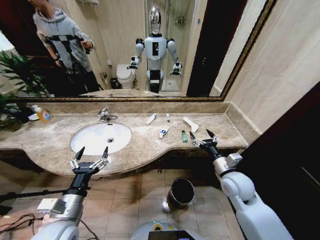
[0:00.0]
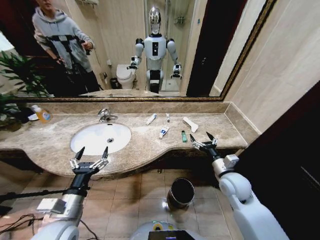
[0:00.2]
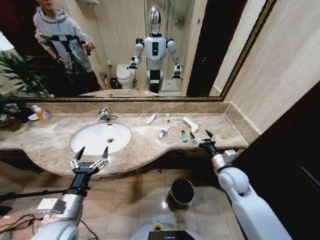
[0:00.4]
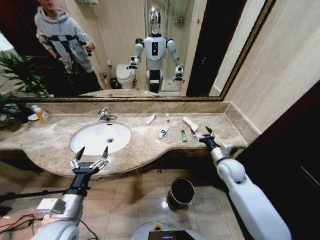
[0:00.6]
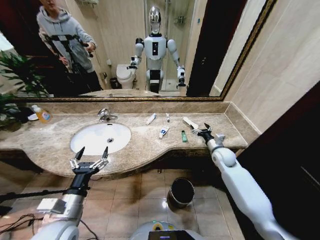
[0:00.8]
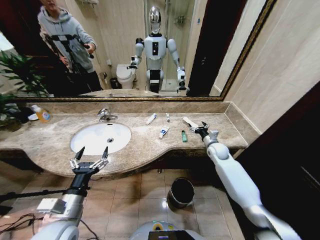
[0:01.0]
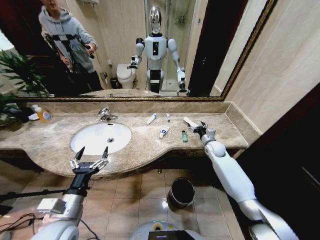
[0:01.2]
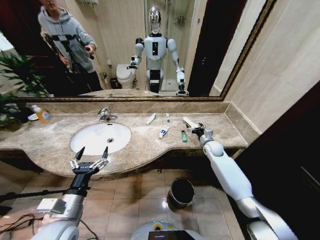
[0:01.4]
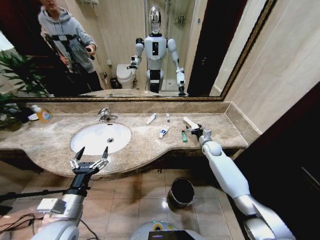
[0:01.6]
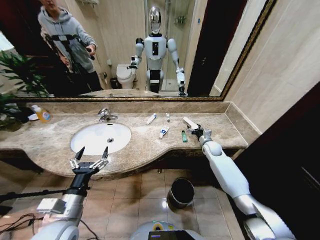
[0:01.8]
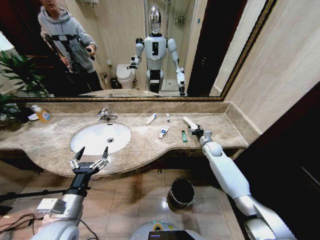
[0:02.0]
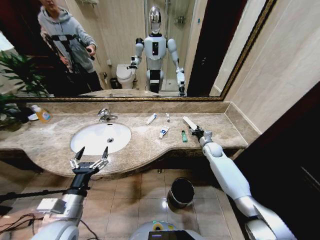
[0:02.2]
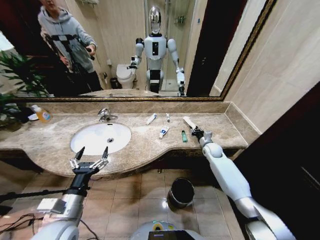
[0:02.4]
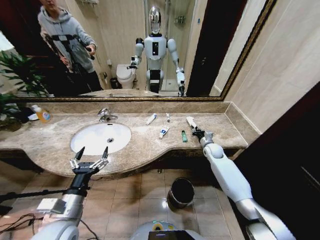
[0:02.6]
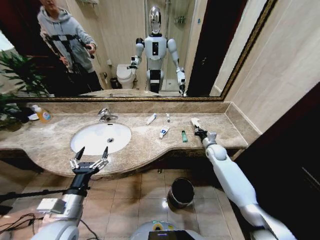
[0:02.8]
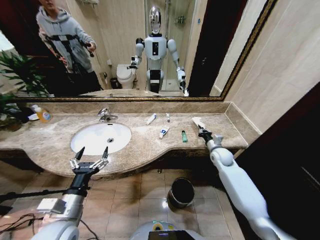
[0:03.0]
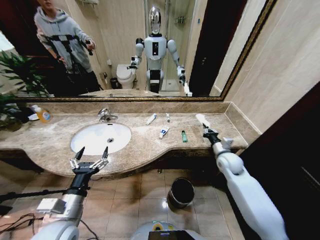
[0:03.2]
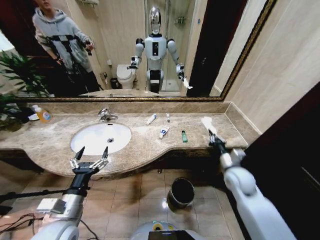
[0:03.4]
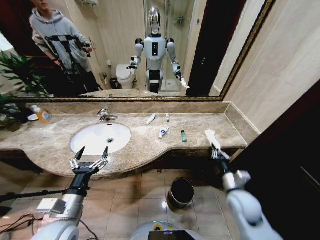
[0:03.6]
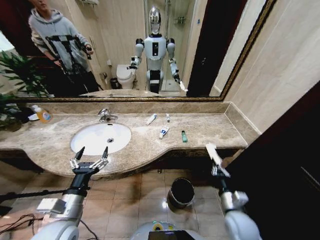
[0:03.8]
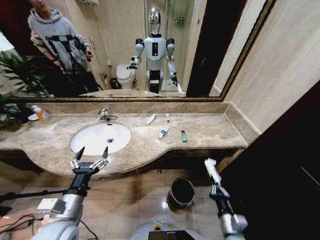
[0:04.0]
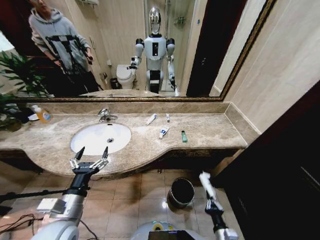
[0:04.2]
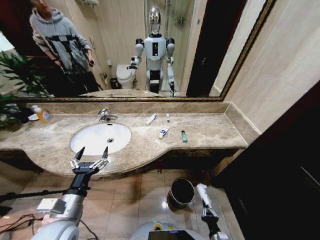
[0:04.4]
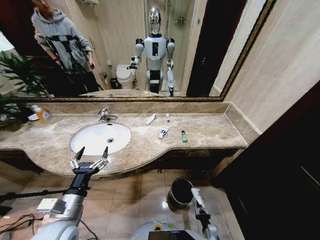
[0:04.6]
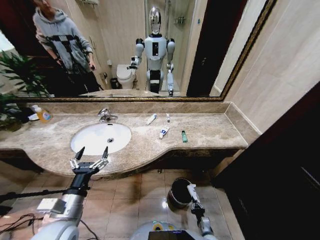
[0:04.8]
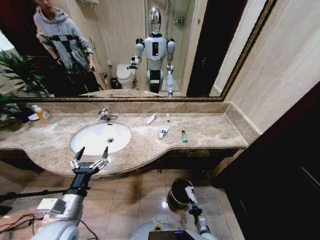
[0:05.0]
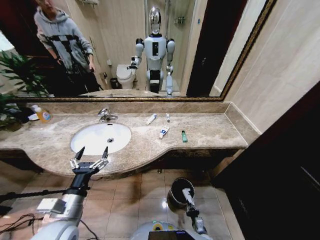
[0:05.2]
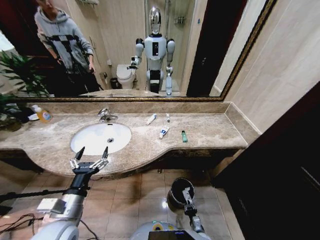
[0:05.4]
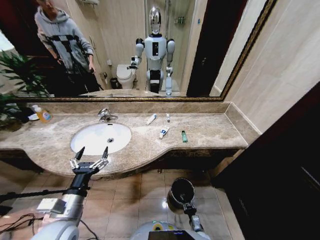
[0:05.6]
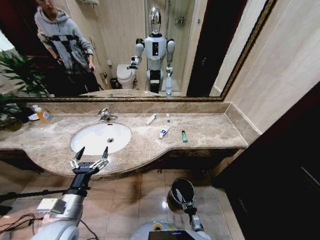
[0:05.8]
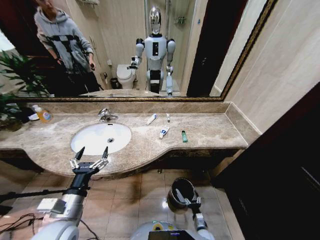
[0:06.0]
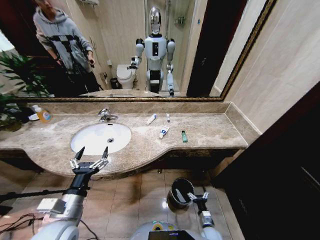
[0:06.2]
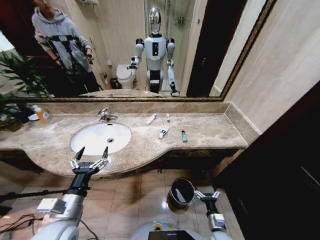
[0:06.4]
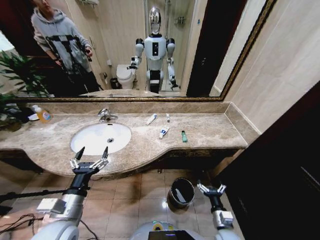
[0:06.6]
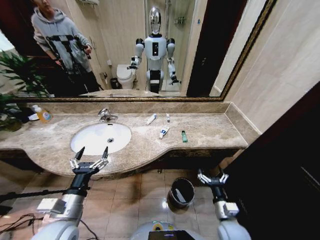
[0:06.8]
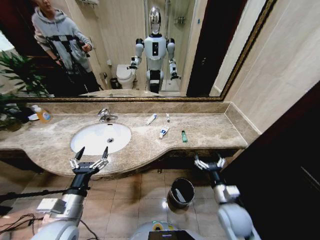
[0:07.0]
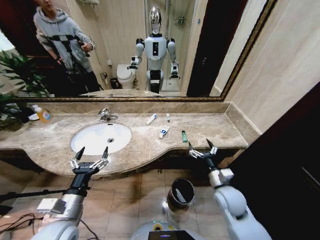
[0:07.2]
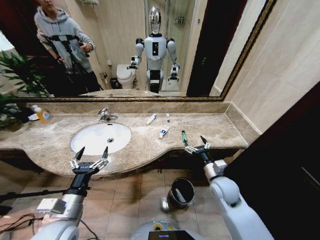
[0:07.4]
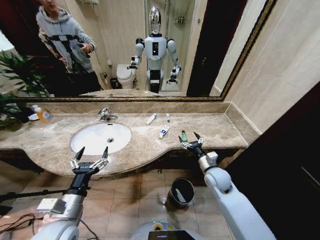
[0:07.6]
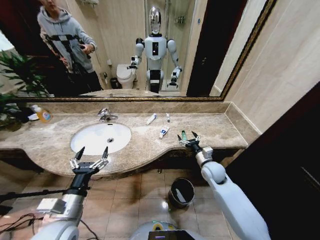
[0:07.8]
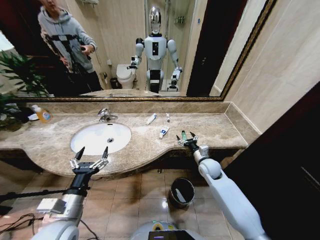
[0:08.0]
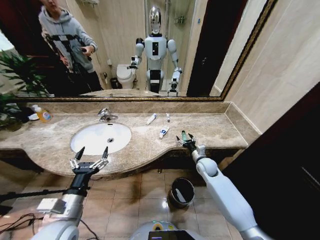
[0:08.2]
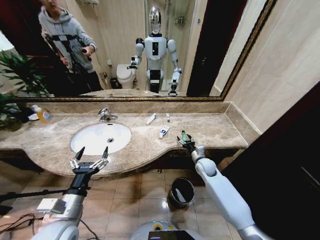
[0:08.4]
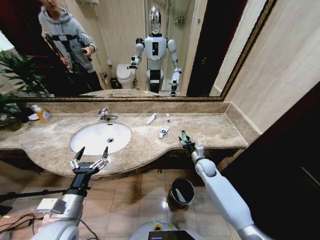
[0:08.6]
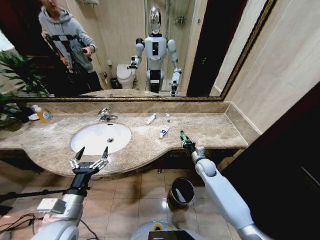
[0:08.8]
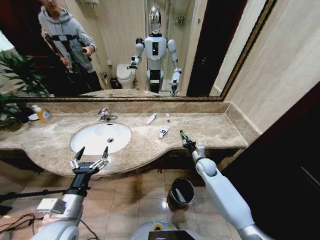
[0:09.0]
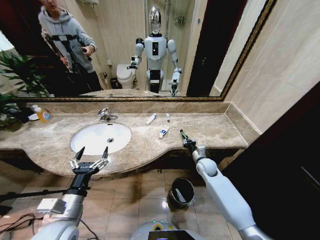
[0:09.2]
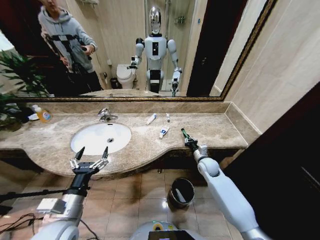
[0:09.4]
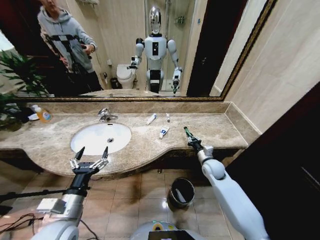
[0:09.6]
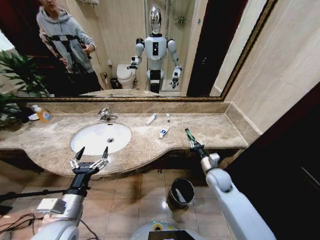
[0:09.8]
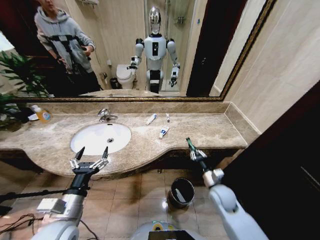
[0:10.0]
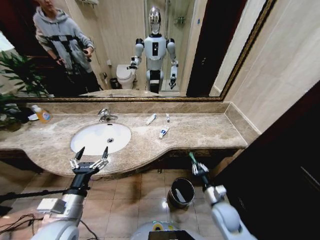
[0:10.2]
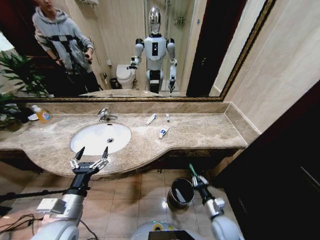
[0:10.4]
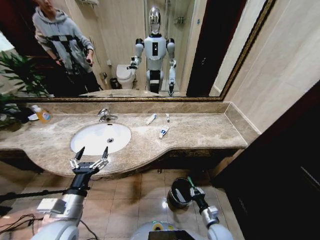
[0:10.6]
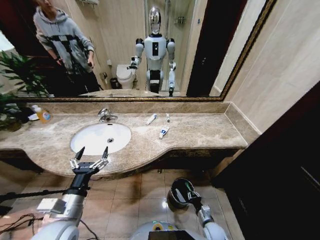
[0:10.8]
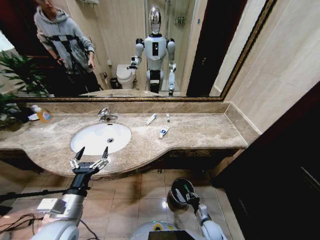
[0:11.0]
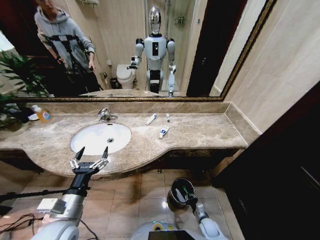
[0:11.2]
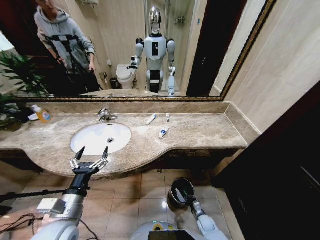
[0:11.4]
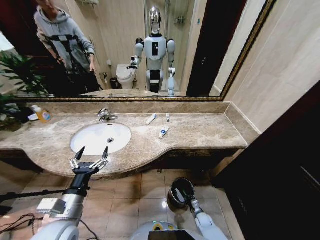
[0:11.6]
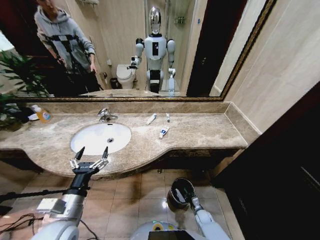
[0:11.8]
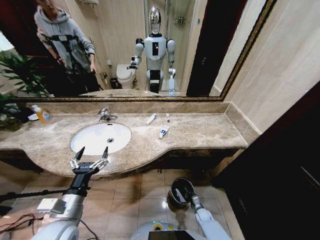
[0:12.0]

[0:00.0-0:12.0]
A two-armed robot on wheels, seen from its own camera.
Task of the whole recording: Pick up the trash from the sink and place it in the trash bin.
0:01.6 to 0:03.0: The right gripper travels backward by approximately 10 cm, and closes up.
0:03.0 to 0:04.4: The right gripper is displaced backward and downward by roughly 40 cm.
0:04.4 to 0:06.0: The right gripper travels downward and forward by some 15 cm, and opens its fingers.
0:06.0 to 0:07.6: The right gripper goes roughly 40 cm upward and forward.
0:07.6 to 0:09.0: The right gripper goes roughly 10 cm forward and downward, and closes up.
0:09.0 to 0:10.4: The right gripper shifts some 25 cm backward.
0:10.4 to 0:12.0: The right gripper is displaced downward by about 25 cm.

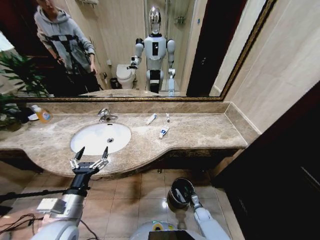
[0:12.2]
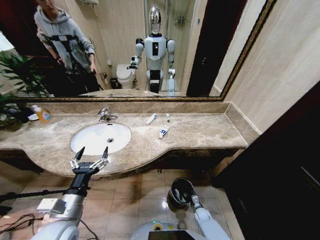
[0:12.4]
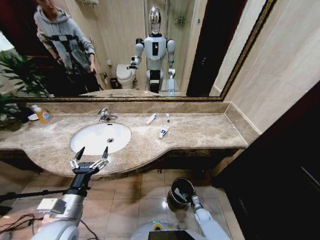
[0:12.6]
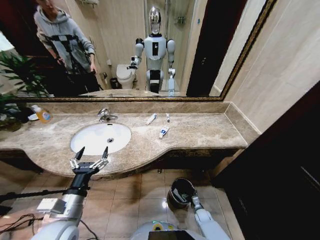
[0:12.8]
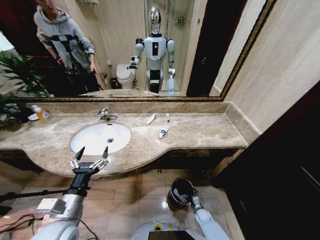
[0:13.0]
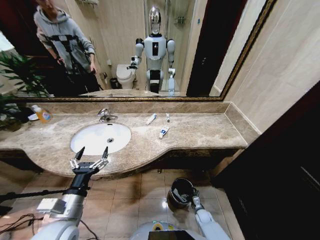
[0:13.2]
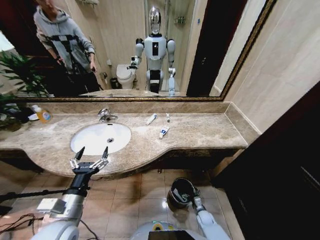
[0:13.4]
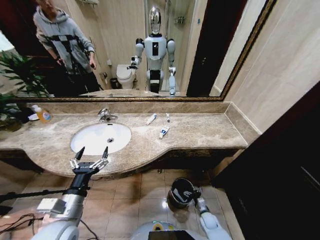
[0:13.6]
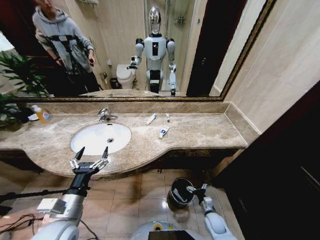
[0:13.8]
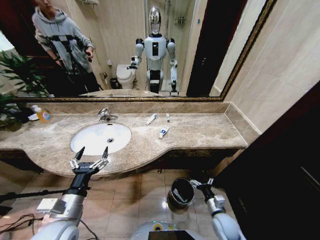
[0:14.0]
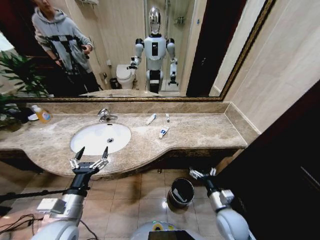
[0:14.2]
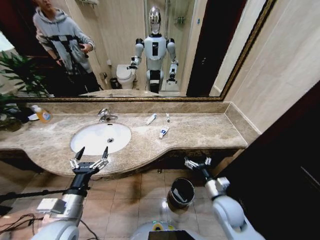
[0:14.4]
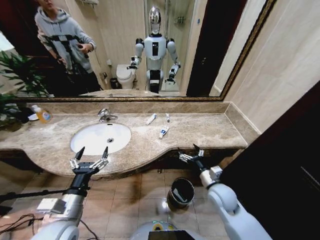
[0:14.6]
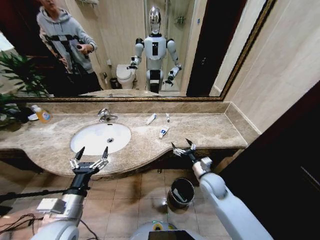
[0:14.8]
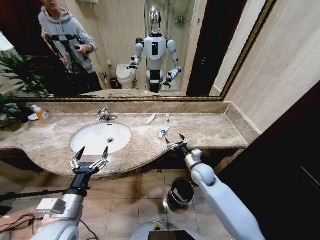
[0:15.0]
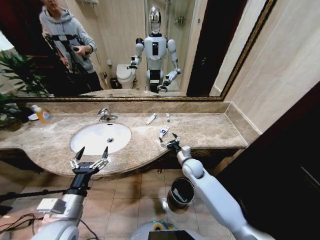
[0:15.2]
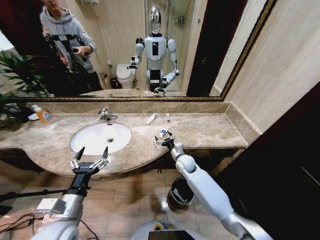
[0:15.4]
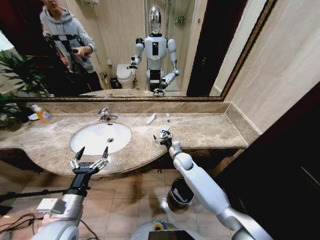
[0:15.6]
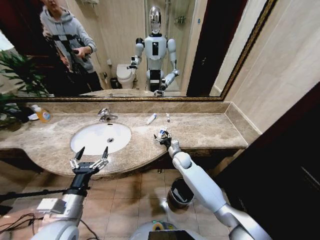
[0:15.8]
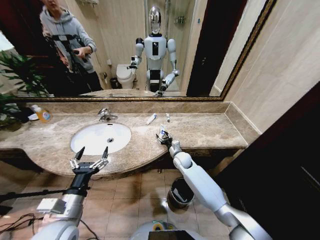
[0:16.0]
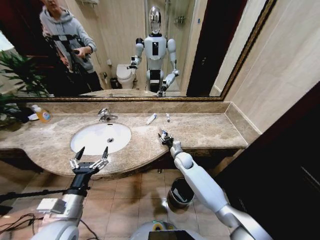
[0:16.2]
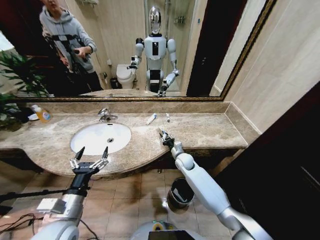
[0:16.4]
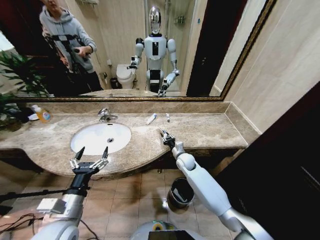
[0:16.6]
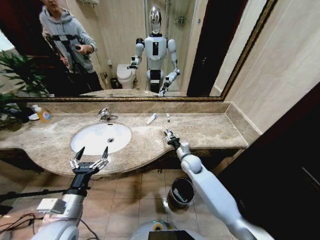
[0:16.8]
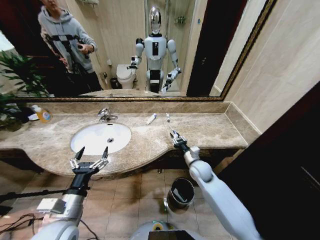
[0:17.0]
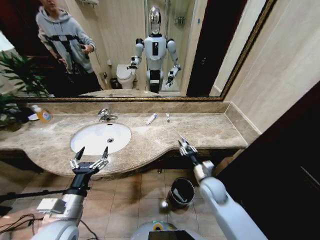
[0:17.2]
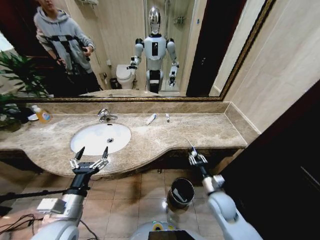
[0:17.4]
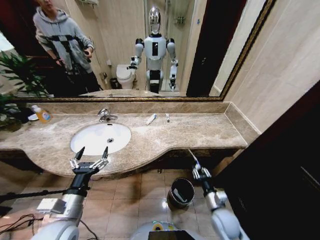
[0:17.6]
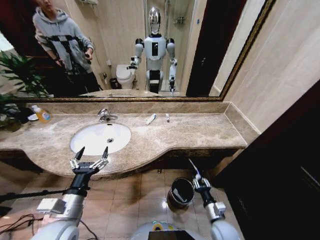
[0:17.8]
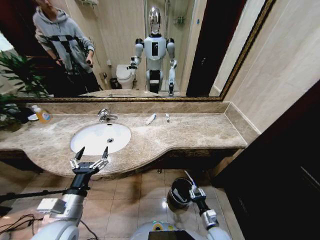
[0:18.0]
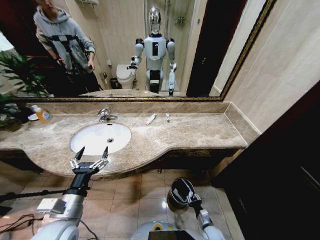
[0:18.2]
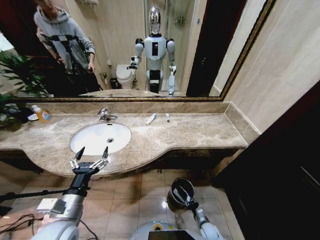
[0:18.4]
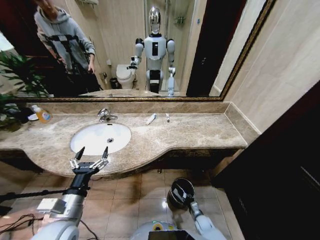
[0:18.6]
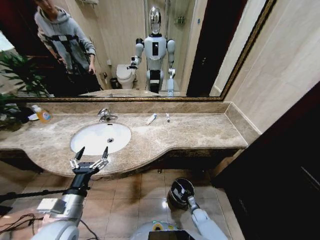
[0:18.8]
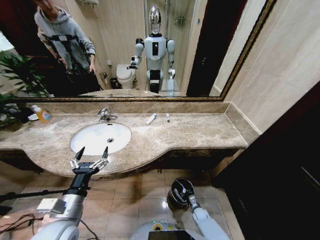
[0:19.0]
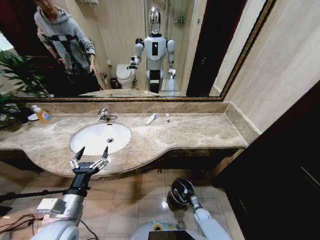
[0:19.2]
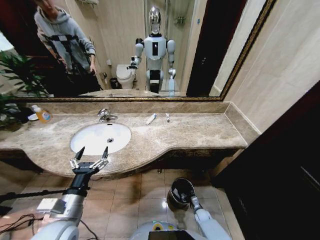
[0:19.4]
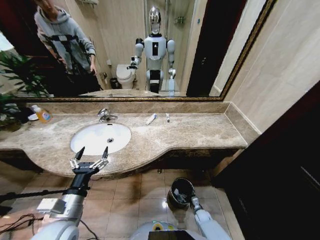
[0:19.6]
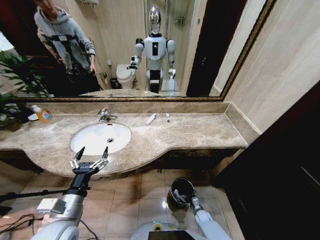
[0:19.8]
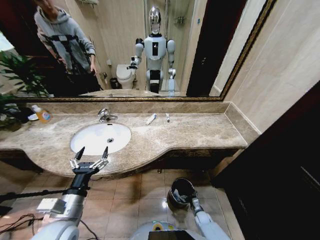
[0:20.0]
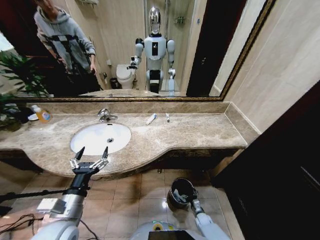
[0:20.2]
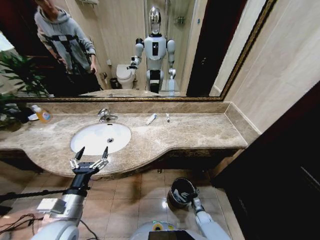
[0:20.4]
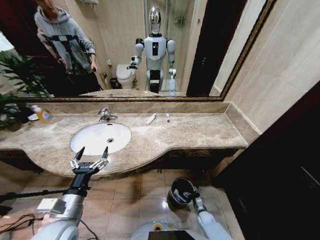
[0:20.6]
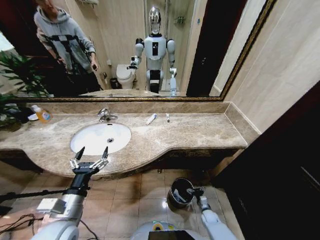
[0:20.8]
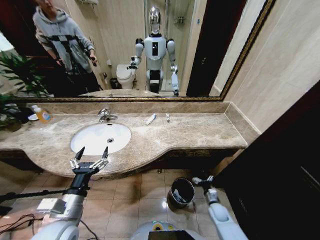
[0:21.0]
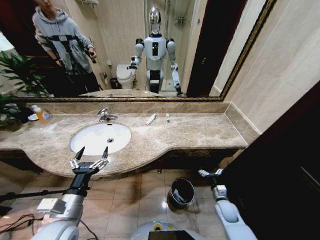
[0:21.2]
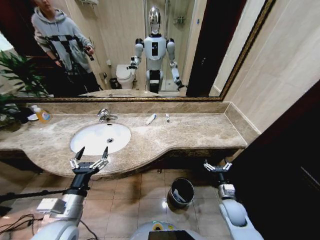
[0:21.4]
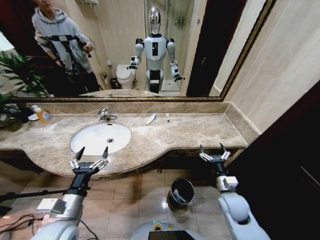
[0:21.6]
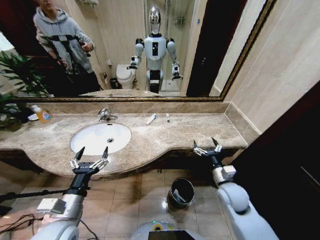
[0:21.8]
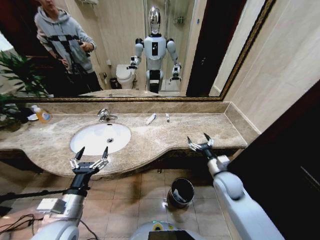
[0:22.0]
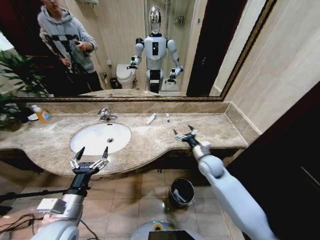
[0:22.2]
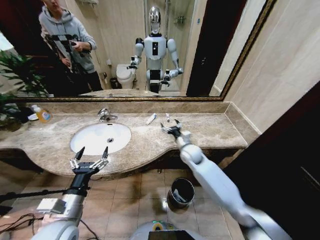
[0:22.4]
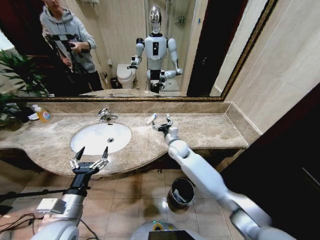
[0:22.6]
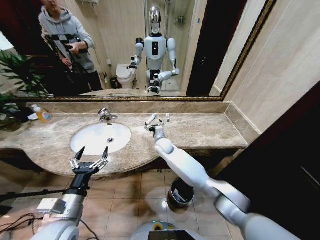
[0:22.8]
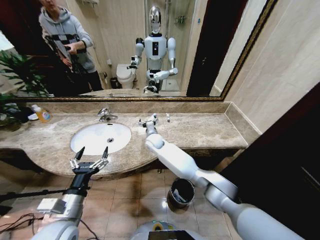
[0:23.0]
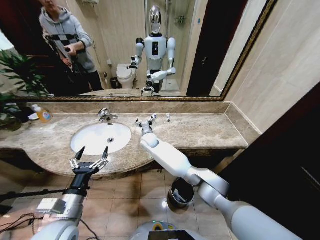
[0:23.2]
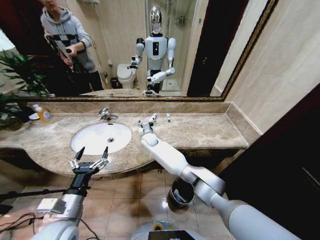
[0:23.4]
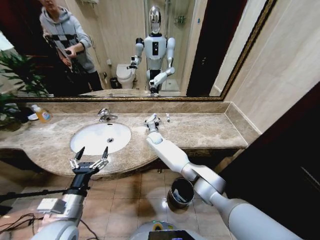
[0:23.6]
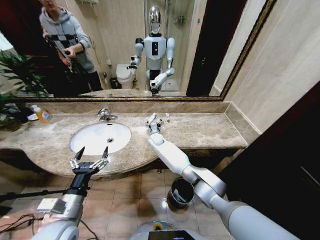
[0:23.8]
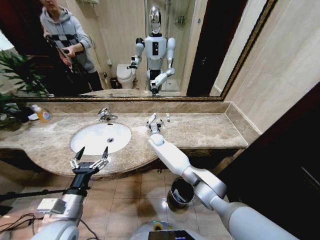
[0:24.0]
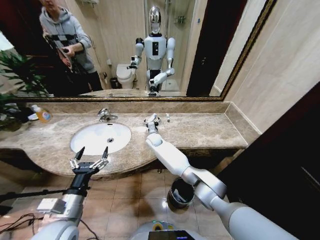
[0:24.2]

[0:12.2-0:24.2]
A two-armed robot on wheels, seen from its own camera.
Task of the whole recording: Pick up the trash from the sink and place it in the trash bin.
0:12.2 to 0:13.8: The right gripper travels upward by about 10 cm, and opens.
0:13.8 to 0:15.2: The right gripper shifts about 30 cm upward, forward and to the left.
0:15.2 to 0:16.6: The right gripper moves some 5 cm, and closes up.
0:16.6 to 0:18.2: The right gripper goes approximately 40 cm backward, downward and to the right.
0:18.2 to 0:19.8: The right gripper goes roughly 10 cm forward and downward, and opens.
0:19.8 to 0:21.2: The right gripper shifts roughly 20 cm upward.
0:21.2 to 0:22.6: The right gripper goes some 40 cm to the left, upward and forward.
0:22.6 to 0:24.2: The right gripper is displaced to the left and forward by some 15 cm.
